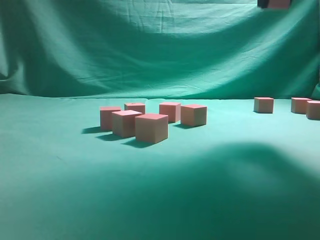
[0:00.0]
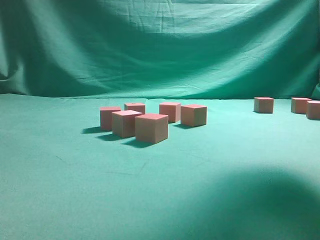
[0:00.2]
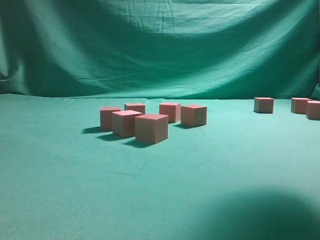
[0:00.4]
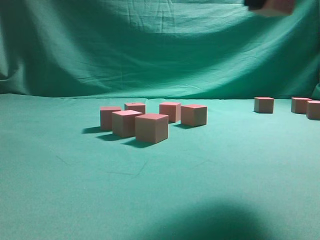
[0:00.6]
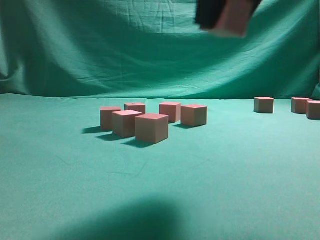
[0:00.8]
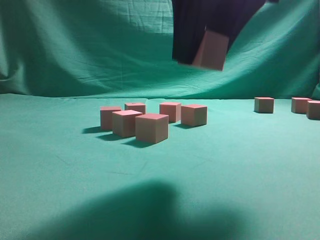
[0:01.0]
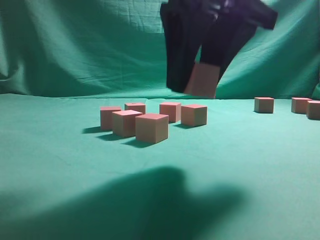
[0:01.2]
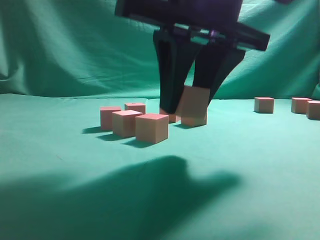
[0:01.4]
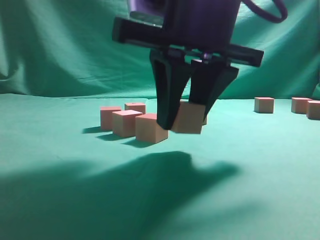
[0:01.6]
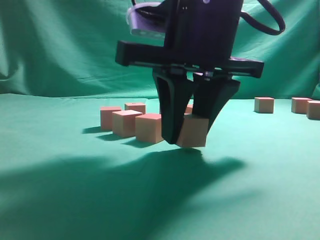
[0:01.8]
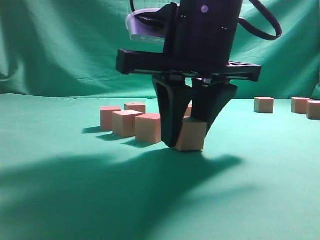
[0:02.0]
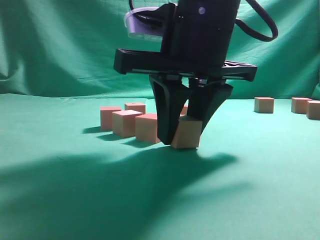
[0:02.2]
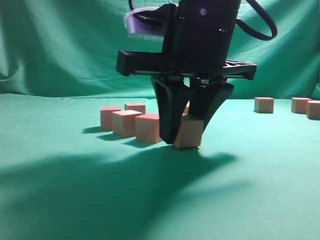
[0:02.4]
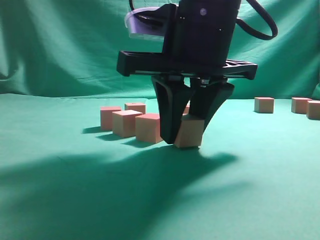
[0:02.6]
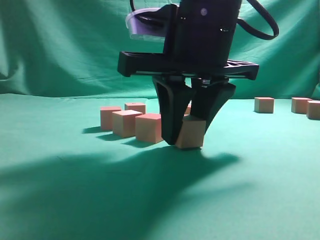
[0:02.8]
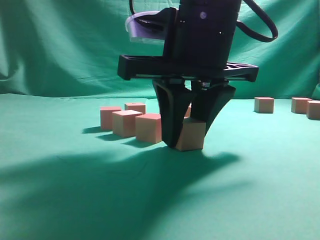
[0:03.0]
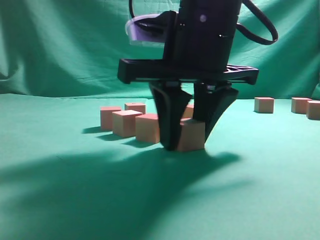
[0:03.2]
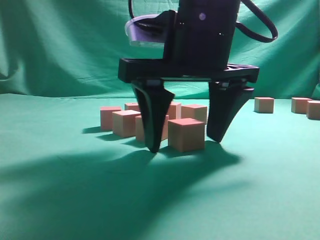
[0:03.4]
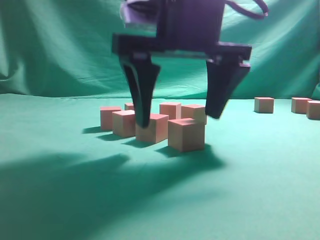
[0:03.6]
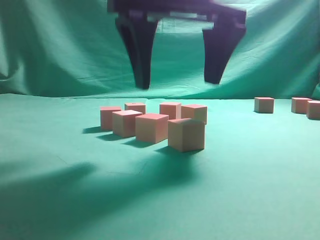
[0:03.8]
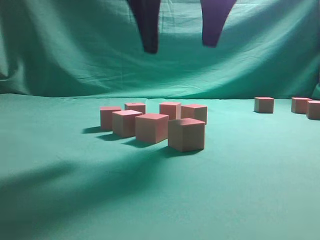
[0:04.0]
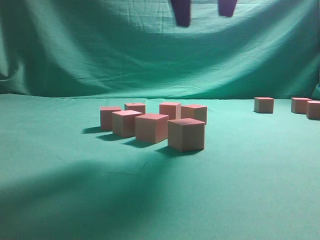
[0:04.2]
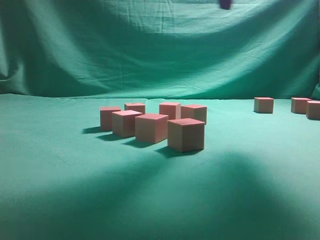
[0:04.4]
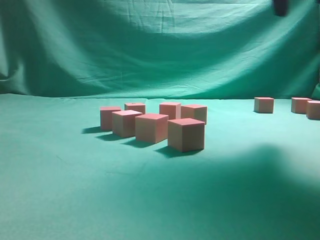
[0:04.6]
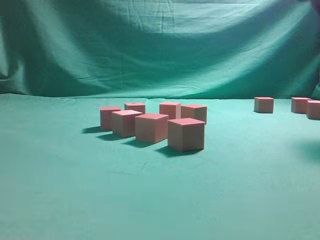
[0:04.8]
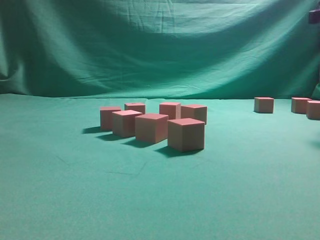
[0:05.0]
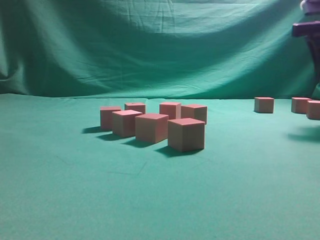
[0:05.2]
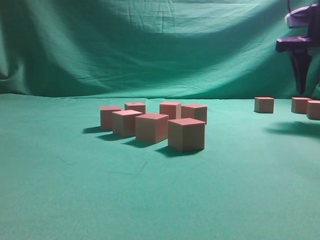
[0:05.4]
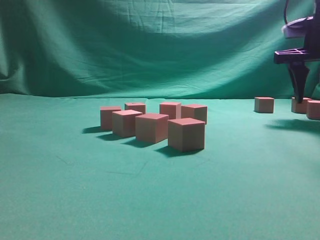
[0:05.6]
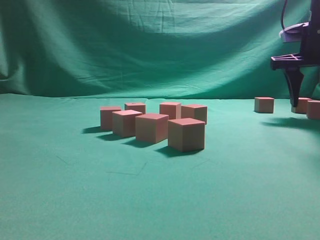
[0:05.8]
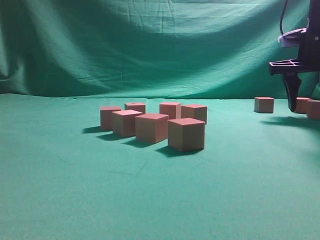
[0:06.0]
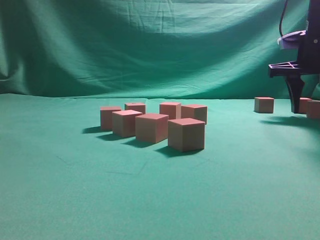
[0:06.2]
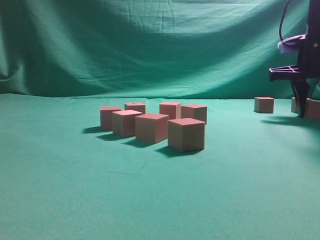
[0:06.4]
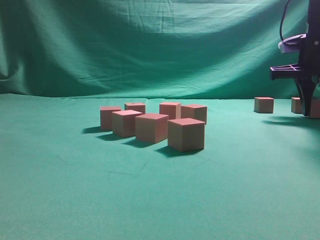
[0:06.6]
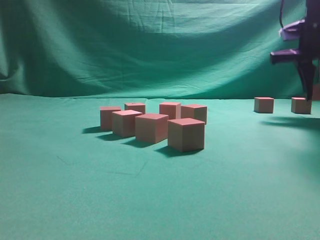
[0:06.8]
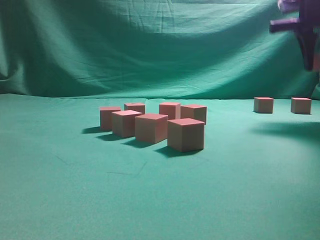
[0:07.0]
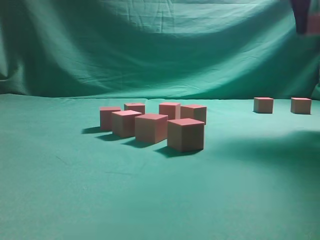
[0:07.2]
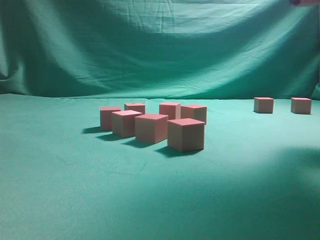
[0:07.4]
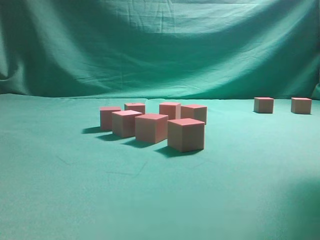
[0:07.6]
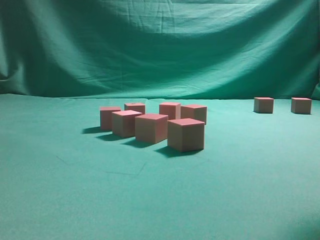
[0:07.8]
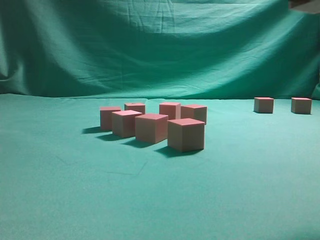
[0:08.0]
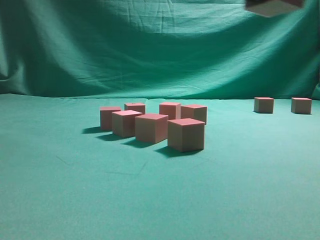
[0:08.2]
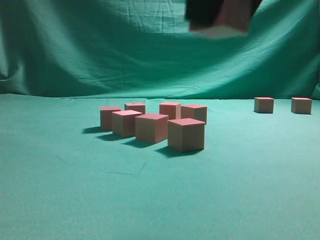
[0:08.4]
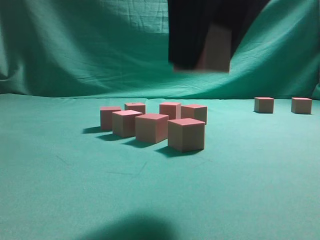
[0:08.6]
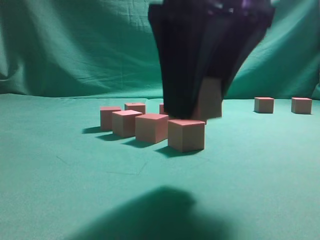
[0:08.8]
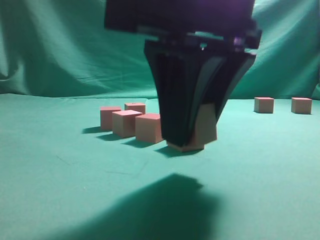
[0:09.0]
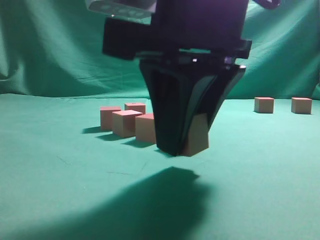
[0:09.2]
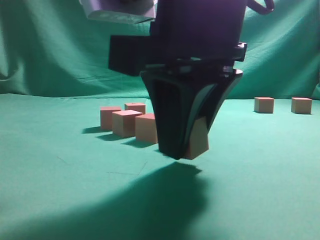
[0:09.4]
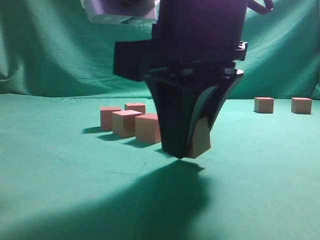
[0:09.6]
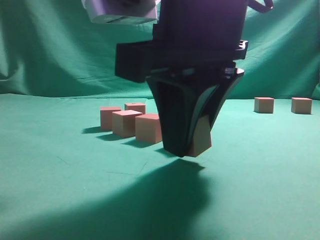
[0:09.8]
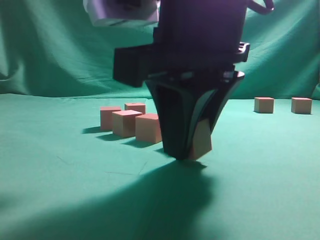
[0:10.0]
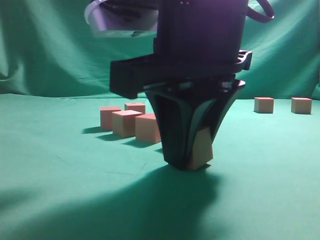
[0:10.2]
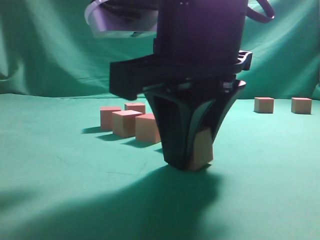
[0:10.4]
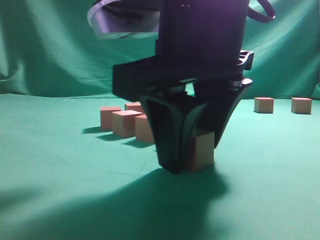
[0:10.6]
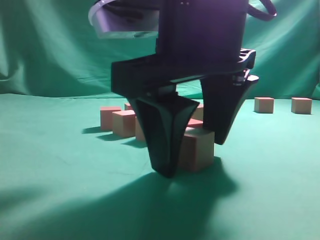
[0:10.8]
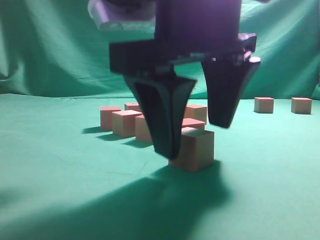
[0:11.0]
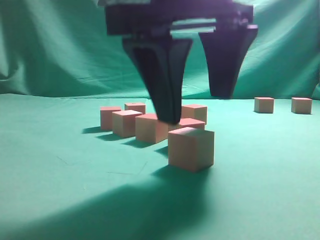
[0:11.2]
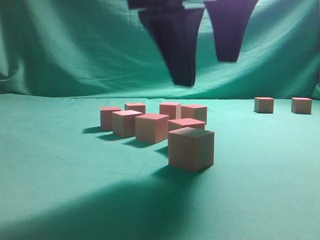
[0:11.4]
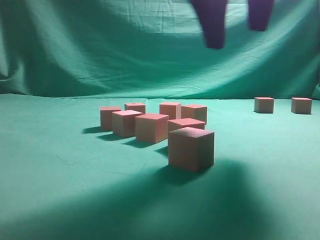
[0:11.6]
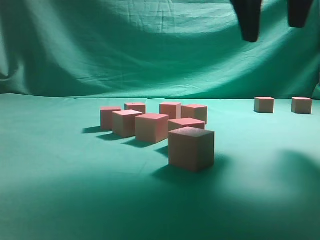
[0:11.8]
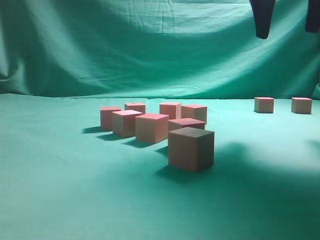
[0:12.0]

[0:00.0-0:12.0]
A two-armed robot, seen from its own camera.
Task of the whole recording: pick up the multiple cubes in two columns one by one and place them in another position on the table.
Step, 0:00.0 to 0:04.0: Place the block at the correct position to assemble the letter S.
Step, 0:04.4 to 0:07.0: Pick up the block on the table.
Step, 0:07.2 to 0:11.6: Place the block at the correct position to assemble the letter S.
0:00.0 to 0:01.6: The right gripper shifts some 25 cm downward, to the left and backward.
0:03.0 to 0:04.4: The right gripper moves upward and to the right, some 20 cm, and opens its fingers.
0:04.4 to 0:06.0: The right gripper shifts roughly 25 cm downward, to the right and forward.
0:06.0 to 0:07.6: The right gripper goes roughly 25 cm upward, backward and to the left, and closes.
0:07.6 to 0:09.0: The right gripper shifts some 25 cm to the left, downward and backward.
0:09.0 to 0:10.4: There are only small adjustments of the grippers.
0:10.4 to 0:12.0: The right gripper travels to the right, forward and upward by approximately 25 cm, and opens its fingers.

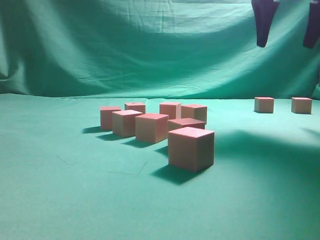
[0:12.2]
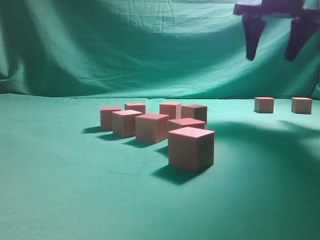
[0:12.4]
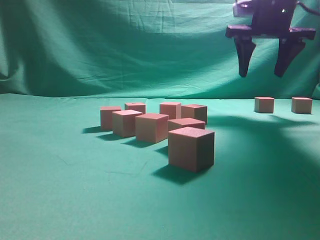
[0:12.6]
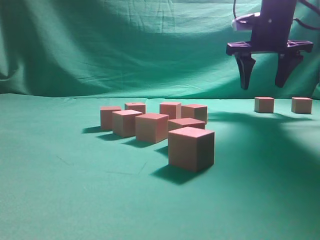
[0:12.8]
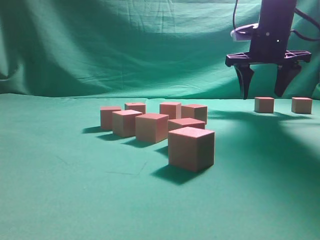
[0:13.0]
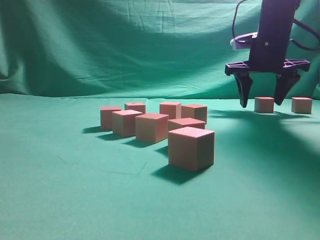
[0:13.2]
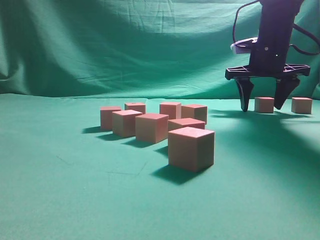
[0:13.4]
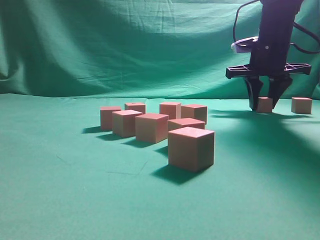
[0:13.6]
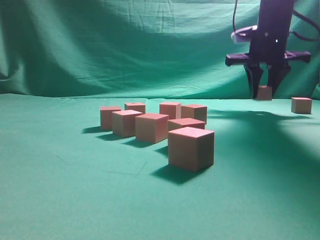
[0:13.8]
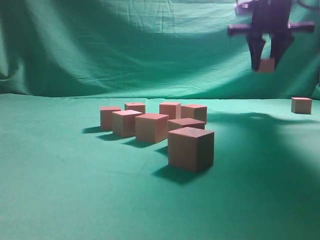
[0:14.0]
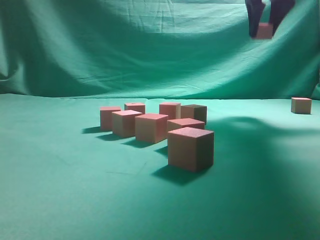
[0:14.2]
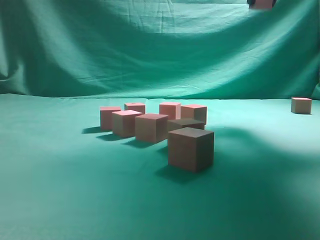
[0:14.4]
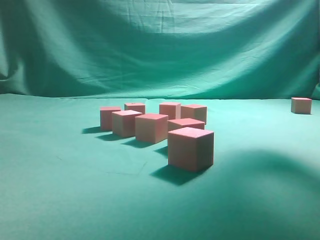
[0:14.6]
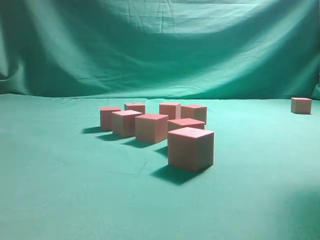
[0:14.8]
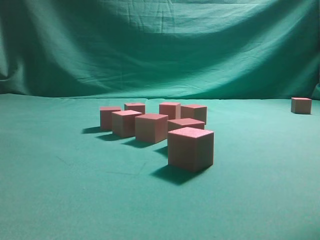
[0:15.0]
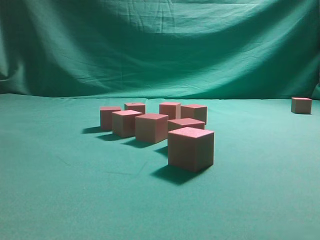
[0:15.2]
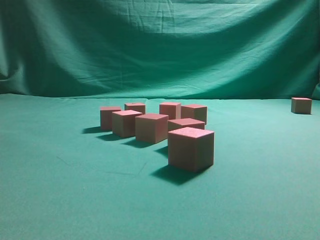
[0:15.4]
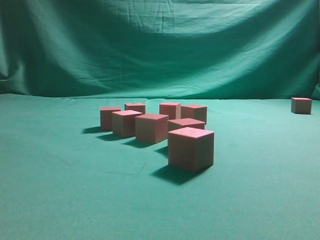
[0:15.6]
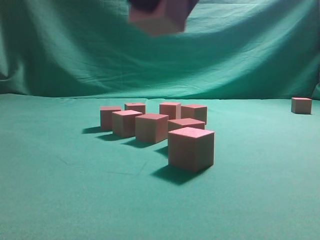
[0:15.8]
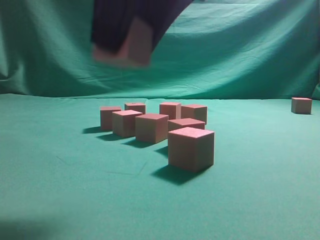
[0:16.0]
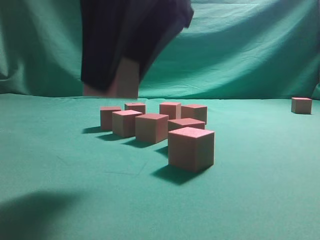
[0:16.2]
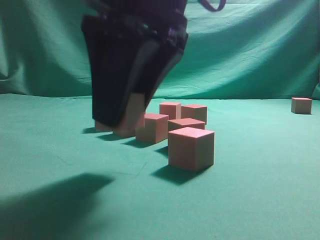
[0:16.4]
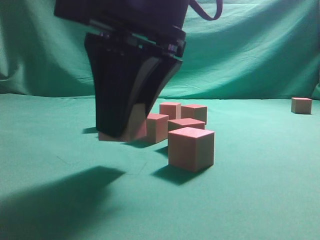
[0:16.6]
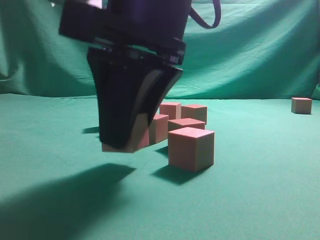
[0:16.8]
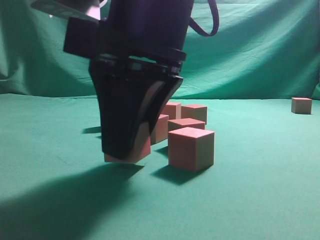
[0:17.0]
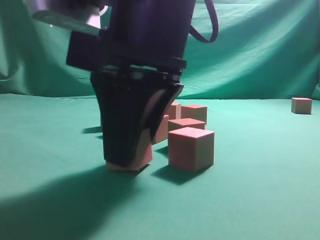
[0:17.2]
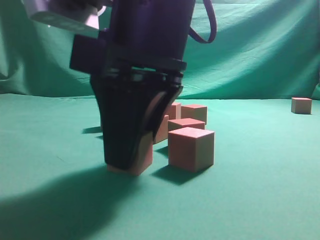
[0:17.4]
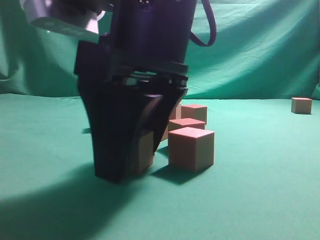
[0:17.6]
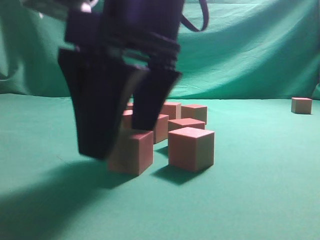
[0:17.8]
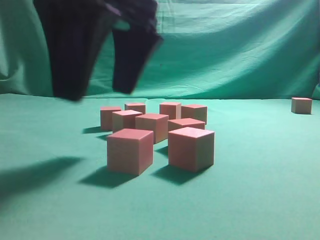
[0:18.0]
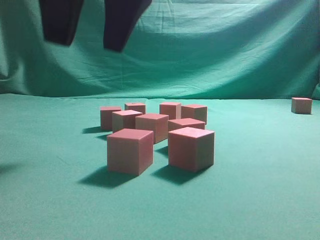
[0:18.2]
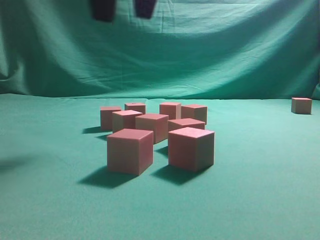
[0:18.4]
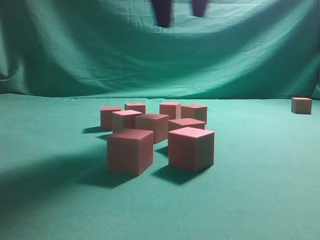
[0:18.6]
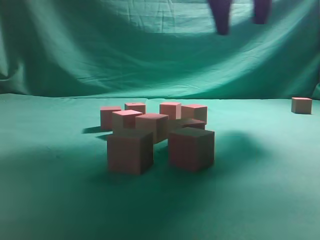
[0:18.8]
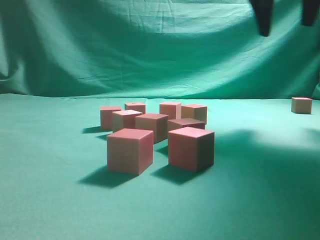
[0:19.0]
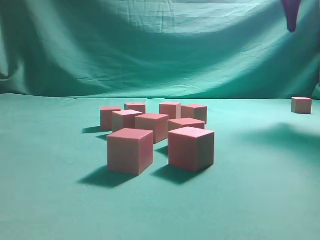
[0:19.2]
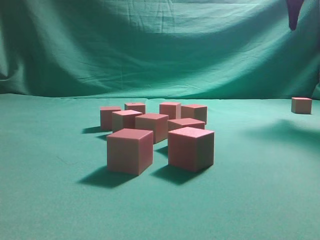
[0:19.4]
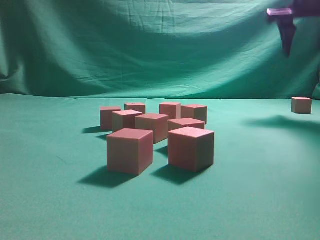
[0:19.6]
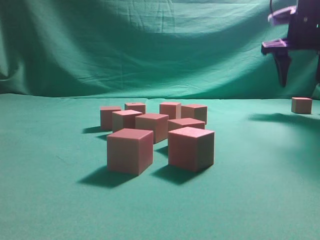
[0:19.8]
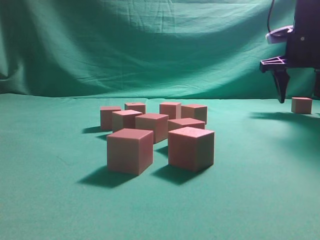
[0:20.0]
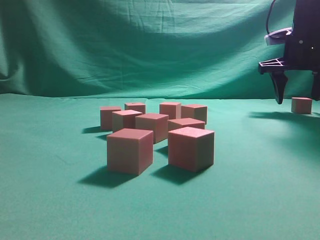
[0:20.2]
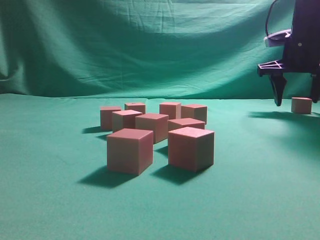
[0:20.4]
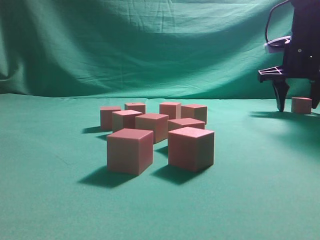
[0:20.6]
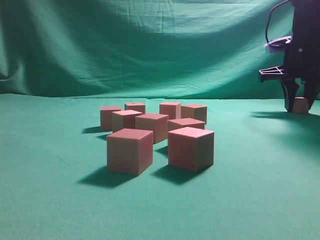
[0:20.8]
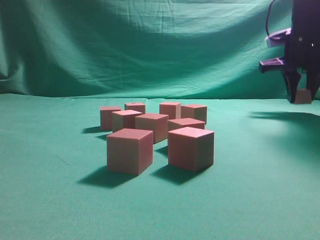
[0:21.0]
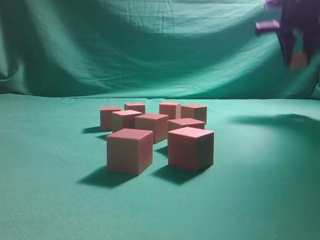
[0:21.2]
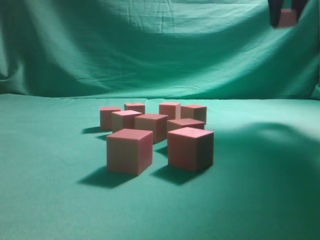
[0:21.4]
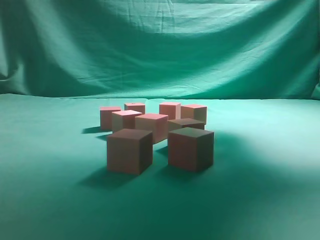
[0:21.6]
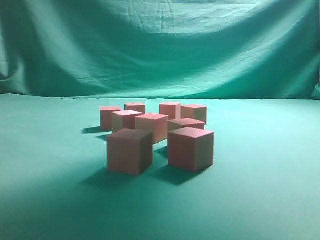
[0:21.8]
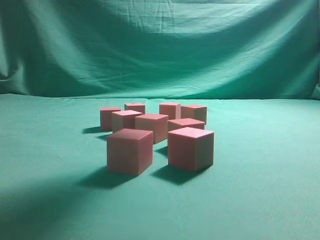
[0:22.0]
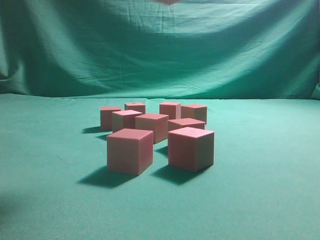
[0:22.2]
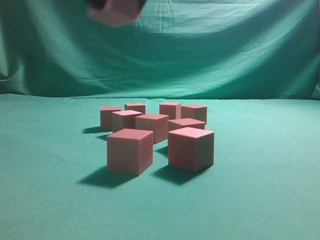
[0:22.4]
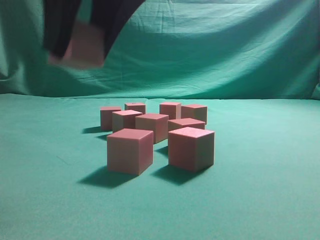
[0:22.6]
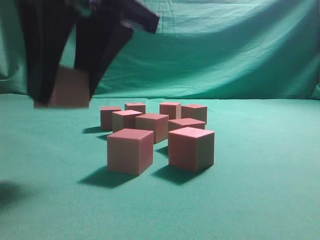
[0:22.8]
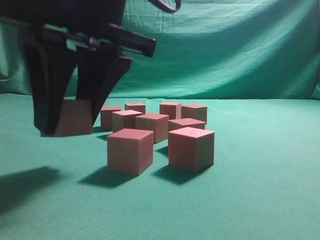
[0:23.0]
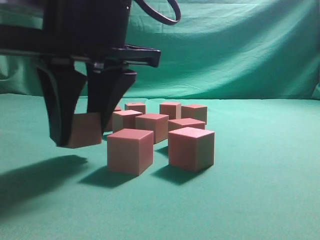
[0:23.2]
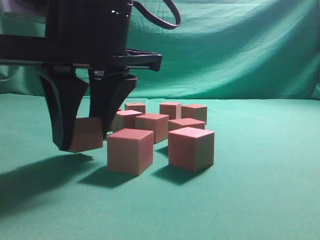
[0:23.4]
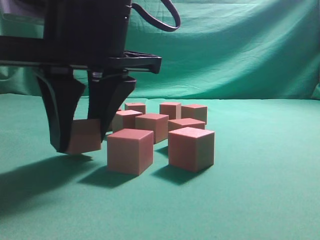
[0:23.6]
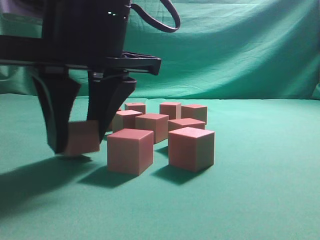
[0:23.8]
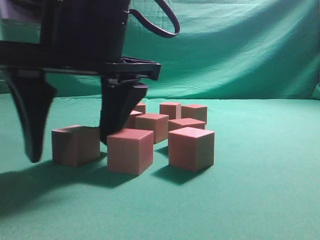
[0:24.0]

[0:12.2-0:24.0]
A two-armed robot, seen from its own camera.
Task of the whole recording: pick up the multiple cubes in two columns one by one and place them in another position on the table.
Step, 0:12.2 to 0:13.8: Pick up the block on the table.
Step, 0:14.0 to 0:18.4: Place the block at the correct position to assemble the letter S.
Step, 0:18.6 to 0:21.0: Pick up the block on the table.
0:12.2 to 0:13.6: The right gripper travels downward and forward by about 15 cm, and closes its fingers.
0:13.6 to 0:15.2: The right gripper goes some 30 cm backward and upward.
0:15.2 to 0:16.6: The right gripper travels to the left and downward by some 20 cm.
0:16.6 to 0:18.2: The right gripper goes about 10 cm upward, and opens up.
0:18.2 to 0:19.6: The right gripper moves to the right and forward, roughly 35 cm.
0:19.6 to 0:21.0: The right gripper moves downward, some 5 cm, and closes.
0:21.0 to 0:22.6: The right gripper goes some 40 cm to the left and backward.
0:22.6 to 0:24.0: The right gripper goes approximately 10 cm downward, and opens its fingers.
